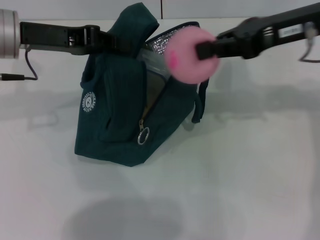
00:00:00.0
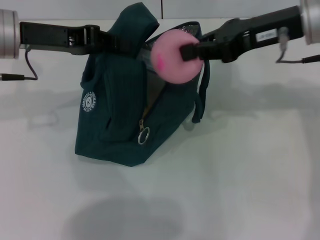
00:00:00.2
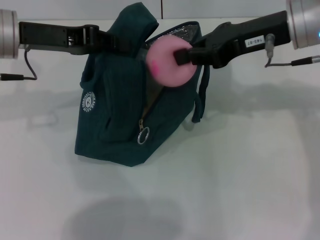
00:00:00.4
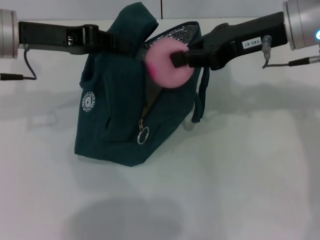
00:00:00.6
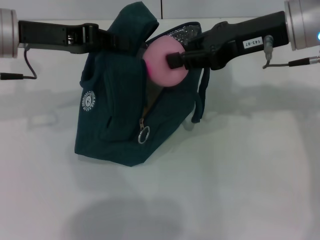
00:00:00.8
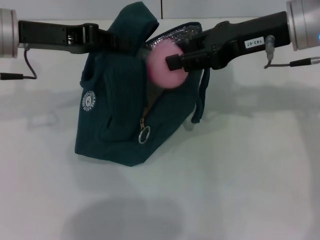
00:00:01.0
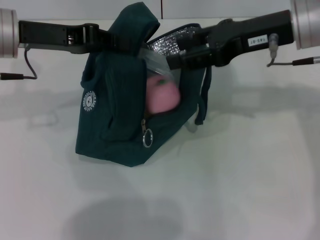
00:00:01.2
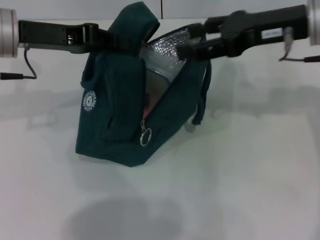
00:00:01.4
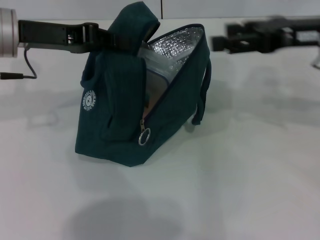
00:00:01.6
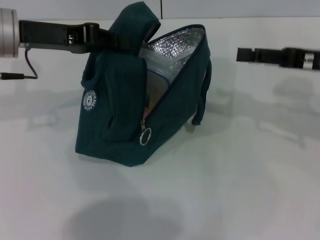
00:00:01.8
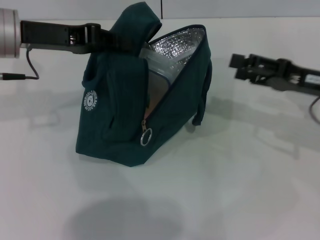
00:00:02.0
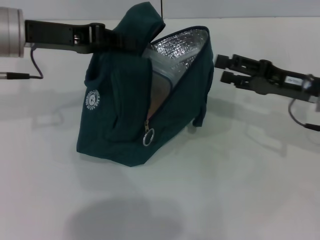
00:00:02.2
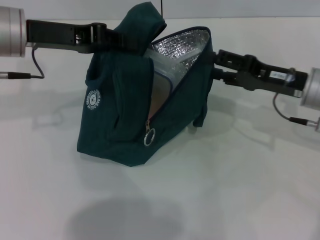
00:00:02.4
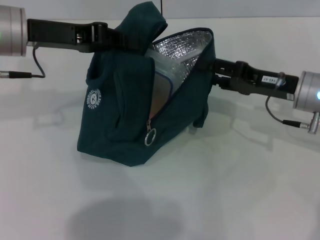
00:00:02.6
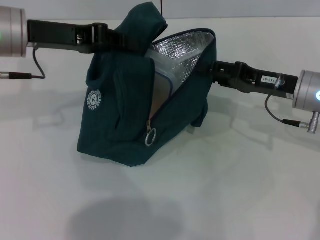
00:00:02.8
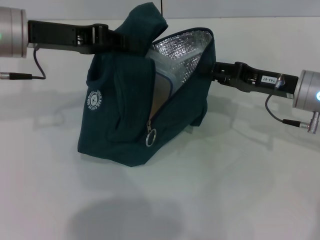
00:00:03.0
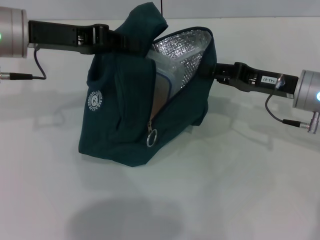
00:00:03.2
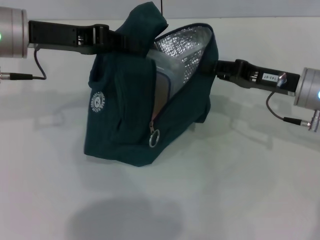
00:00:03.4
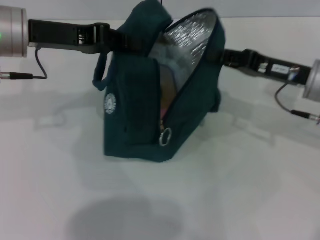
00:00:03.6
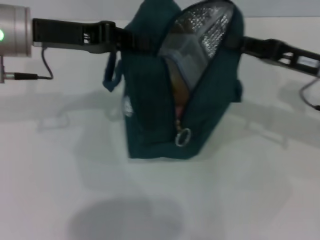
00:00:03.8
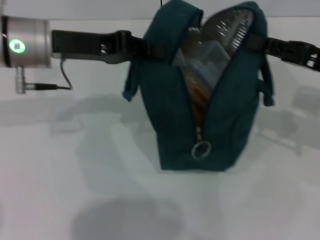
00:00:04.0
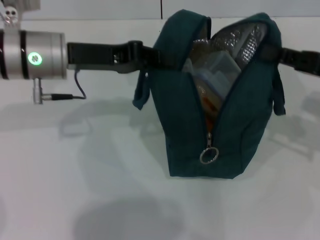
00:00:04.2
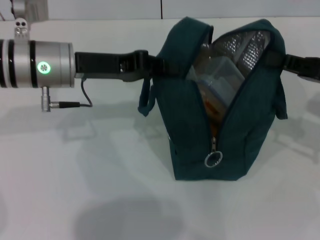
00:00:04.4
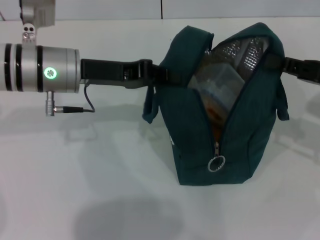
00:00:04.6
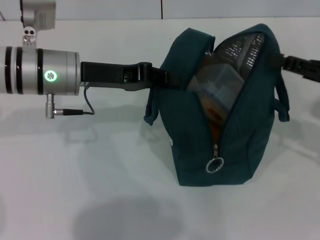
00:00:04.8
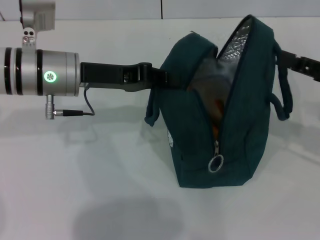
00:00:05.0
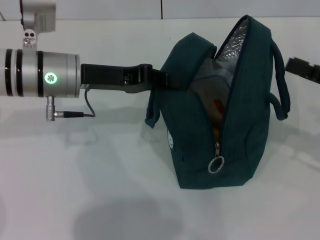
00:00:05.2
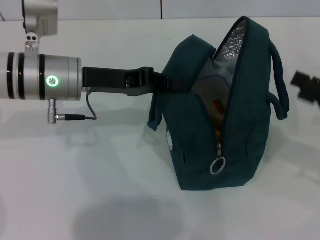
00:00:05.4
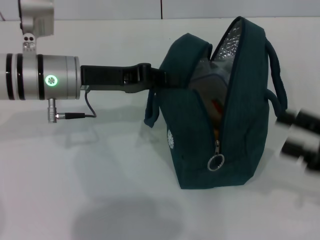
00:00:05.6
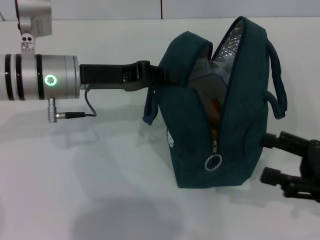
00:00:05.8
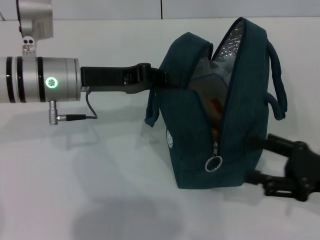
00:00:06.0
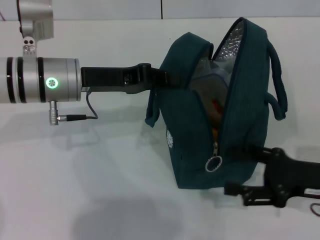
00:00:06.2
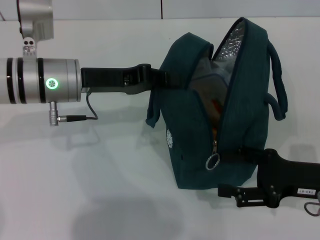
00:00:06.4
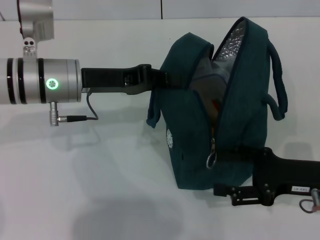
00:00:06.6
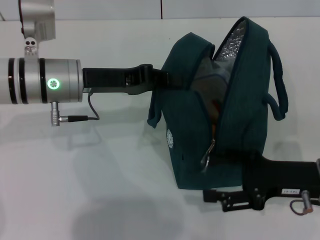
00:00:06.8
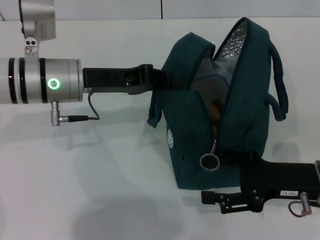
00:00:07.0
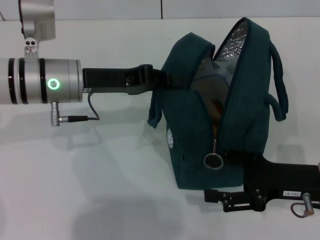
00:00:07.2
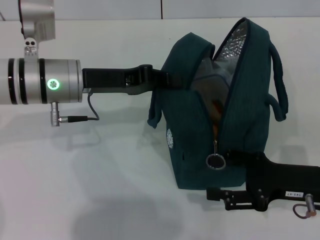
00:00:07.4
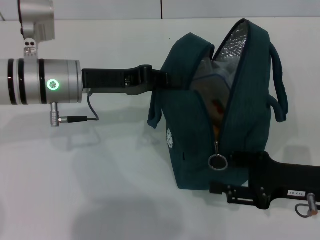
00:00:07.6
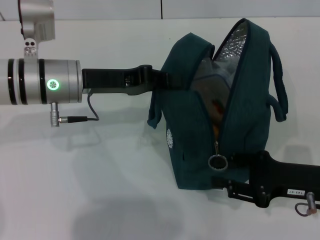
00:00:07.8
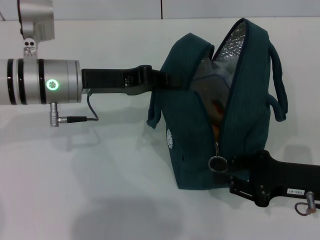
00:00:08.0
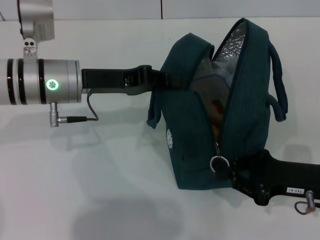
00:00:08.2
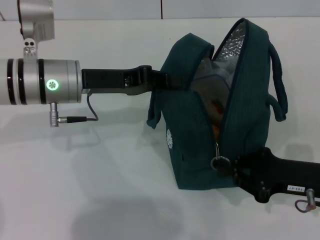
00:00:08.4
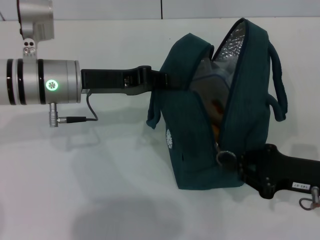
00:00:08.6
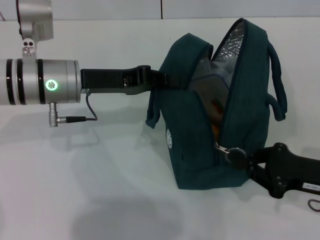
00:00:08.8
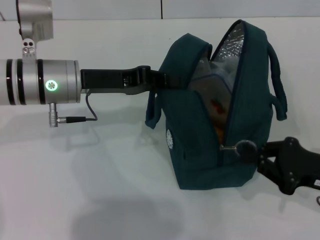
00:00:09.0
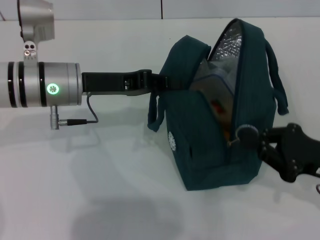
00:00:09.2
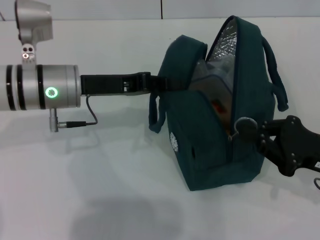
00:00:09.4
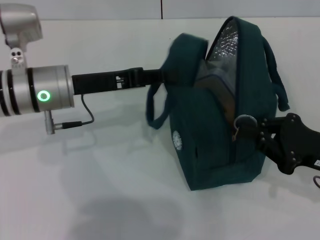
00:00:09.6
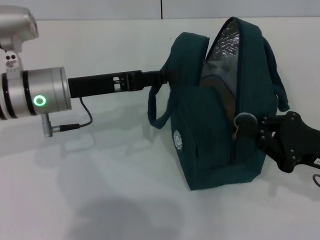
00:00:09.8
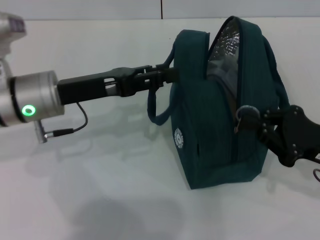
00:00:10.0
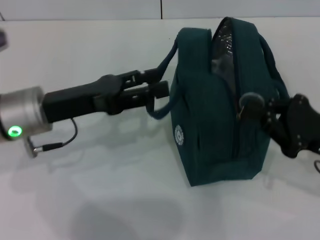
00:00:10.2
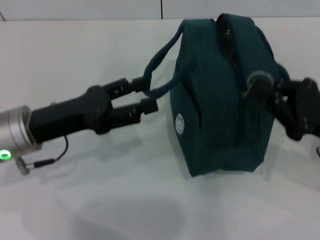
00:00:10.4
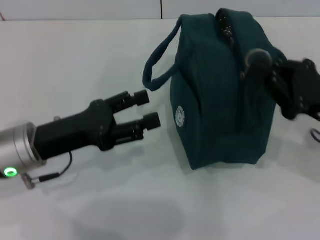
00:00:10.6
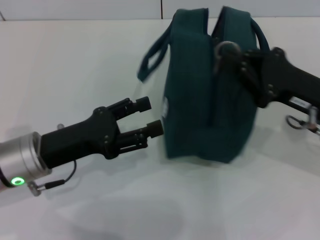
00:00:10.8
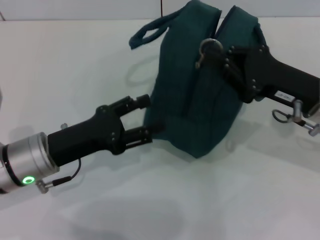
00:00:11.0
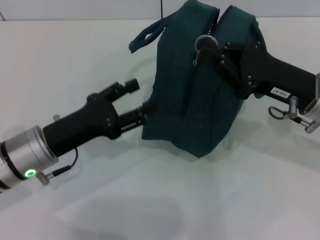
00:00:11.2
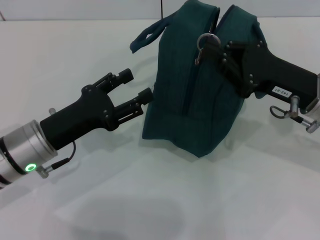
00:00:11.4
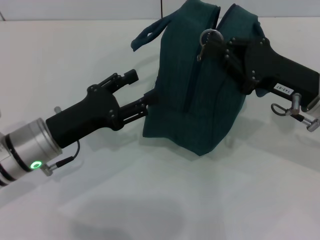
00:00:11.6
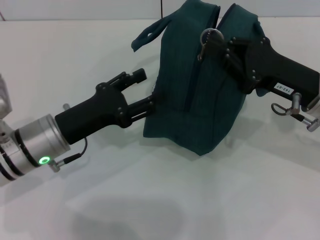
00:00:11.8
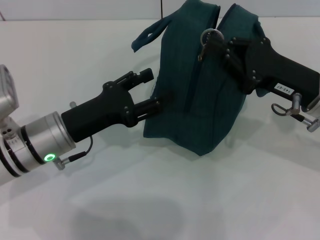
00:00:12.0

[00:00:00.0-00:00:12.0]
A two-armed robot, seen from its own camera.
Step, 00:00:01.6 to 00:00:05.4: Hold the lunch bag with your right hand.
Step, 00:00:05.6 to 00:00:10.2: Hold the lunch bag with your left hand.
00:00:00.0 to 00:00:01.6: The right gripper opens.
00:00:01.6 to 00:00:03.0: The right gripper goes roughly 10 cm downward.
00:00:03.0 to 00:00:04.4: The left gripper moves approximately 5 cm; the right gripper heads to the right, covering about 10 cm, and closes up.
00:00:04.4 to 00:00:06.0: The right gripper is displaced backward and downward by about 10 cm, and opens up.
00:00:06.0 to 00:00:07.6: The grippers move only a little.
00:00:07.6 to 00:00:09.0: The right gripper closes its fingers.
00:00:09.0 to 00:00:10.4: The left gripper shifts approximately 10 cm backward, and opens.
00:00:10.4 to 00:00:12.0: The left gripper moves approximately 5 cm, while the right gripper heads forward and to the left, covering roughly 10 cm.

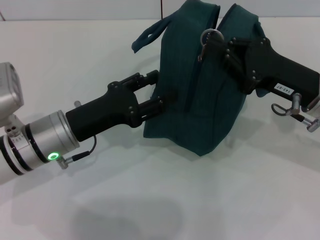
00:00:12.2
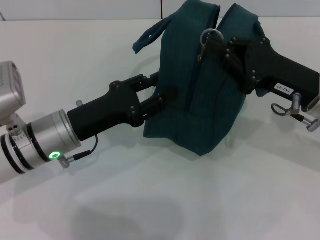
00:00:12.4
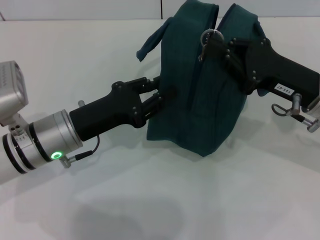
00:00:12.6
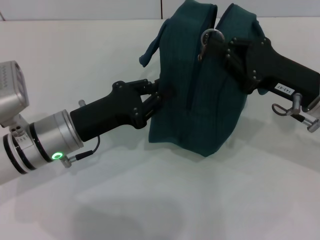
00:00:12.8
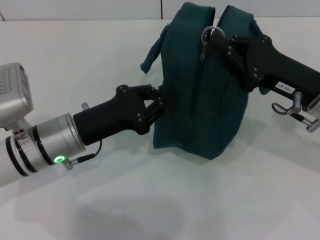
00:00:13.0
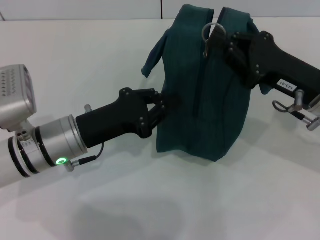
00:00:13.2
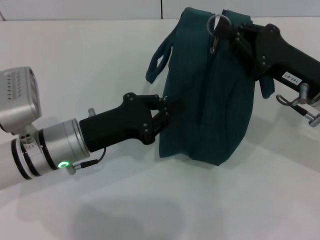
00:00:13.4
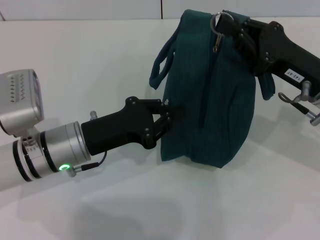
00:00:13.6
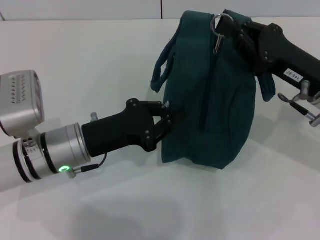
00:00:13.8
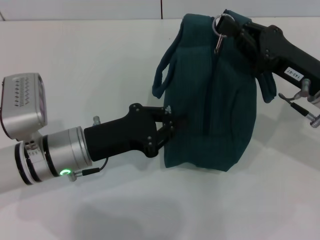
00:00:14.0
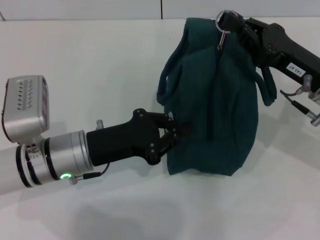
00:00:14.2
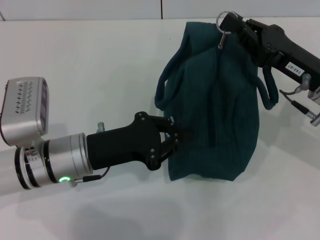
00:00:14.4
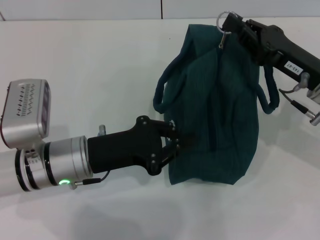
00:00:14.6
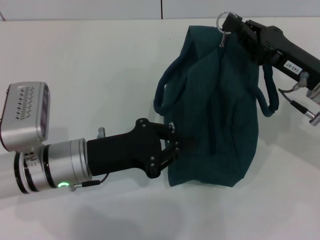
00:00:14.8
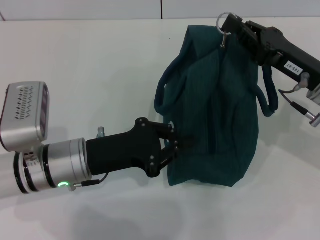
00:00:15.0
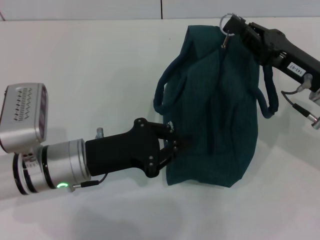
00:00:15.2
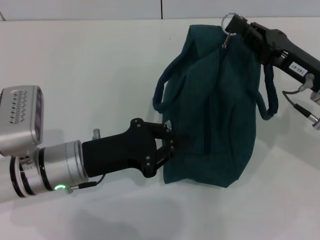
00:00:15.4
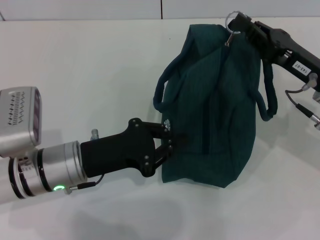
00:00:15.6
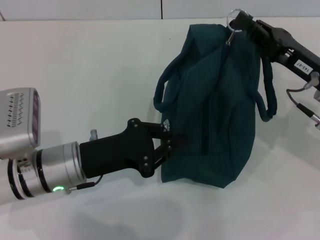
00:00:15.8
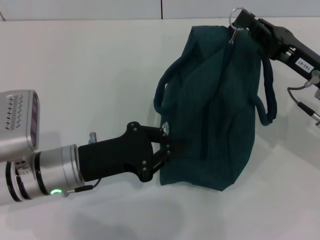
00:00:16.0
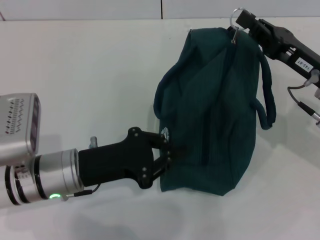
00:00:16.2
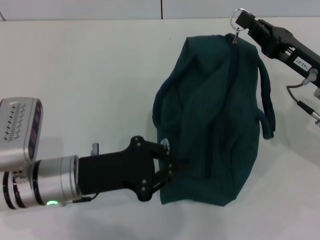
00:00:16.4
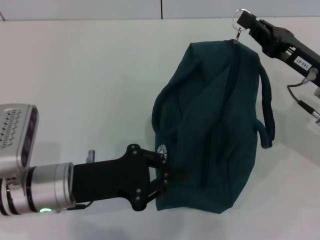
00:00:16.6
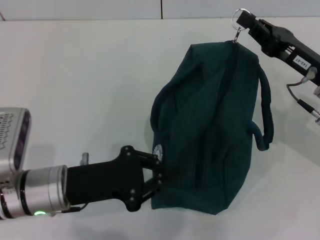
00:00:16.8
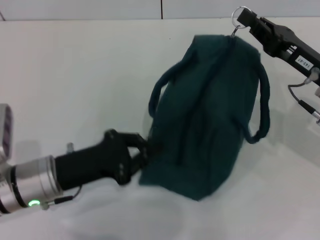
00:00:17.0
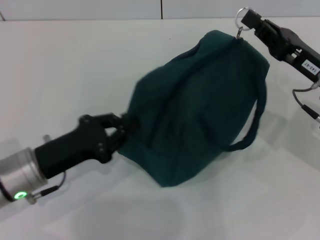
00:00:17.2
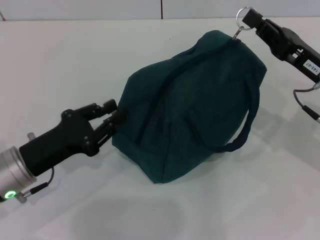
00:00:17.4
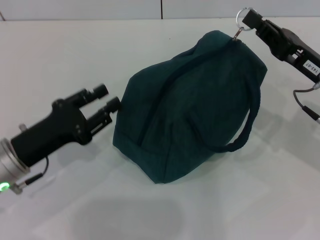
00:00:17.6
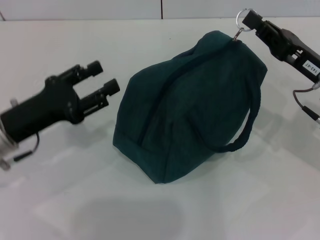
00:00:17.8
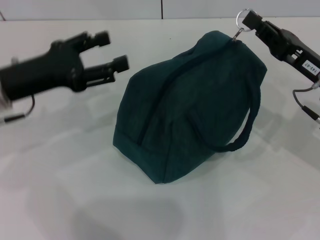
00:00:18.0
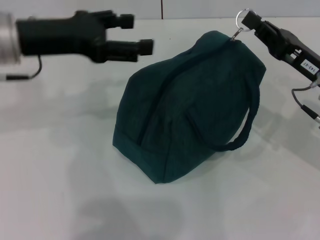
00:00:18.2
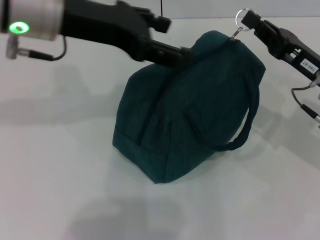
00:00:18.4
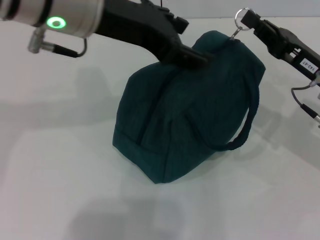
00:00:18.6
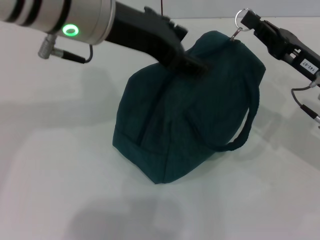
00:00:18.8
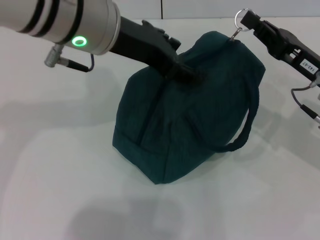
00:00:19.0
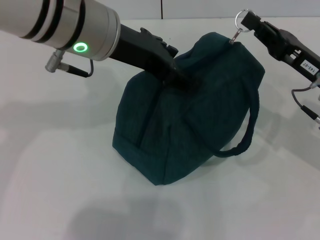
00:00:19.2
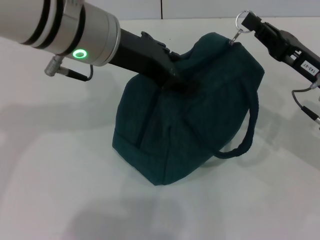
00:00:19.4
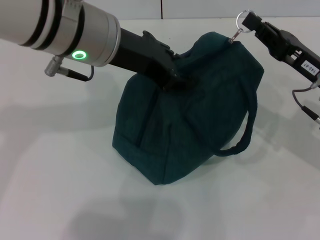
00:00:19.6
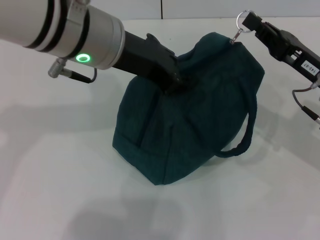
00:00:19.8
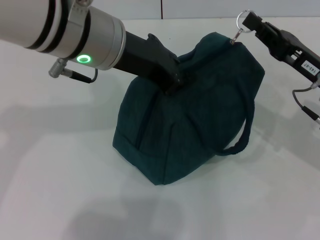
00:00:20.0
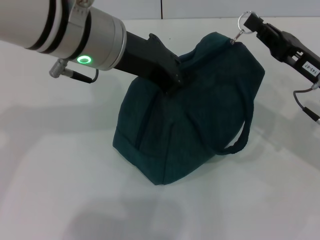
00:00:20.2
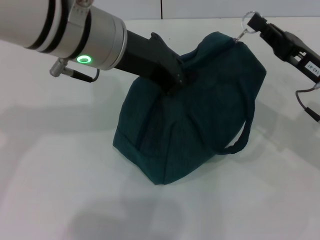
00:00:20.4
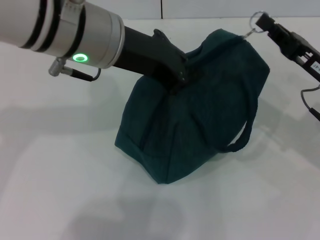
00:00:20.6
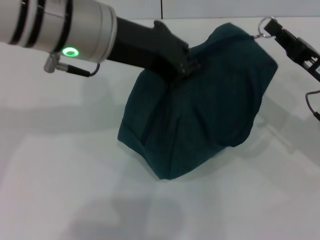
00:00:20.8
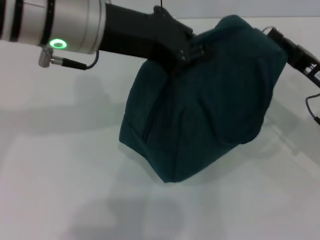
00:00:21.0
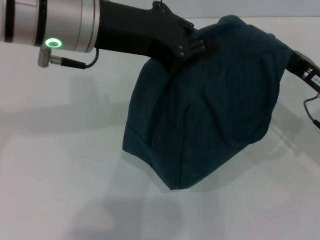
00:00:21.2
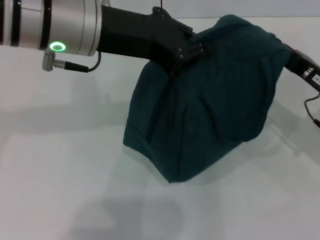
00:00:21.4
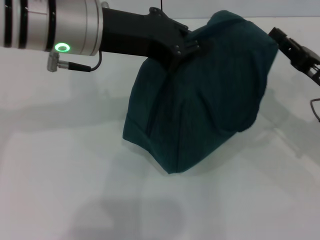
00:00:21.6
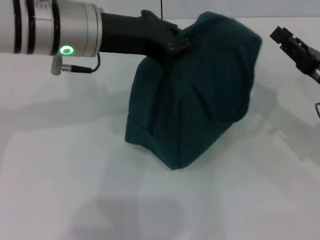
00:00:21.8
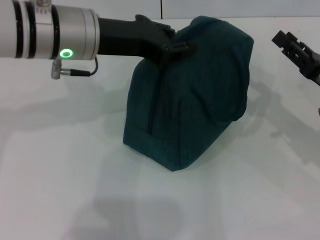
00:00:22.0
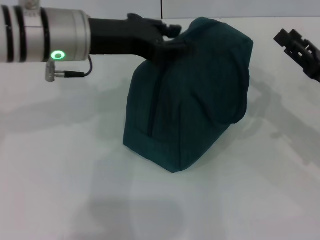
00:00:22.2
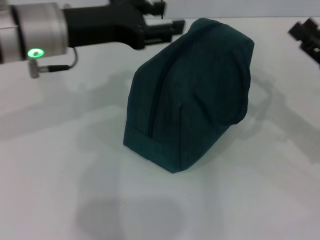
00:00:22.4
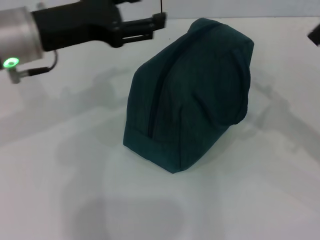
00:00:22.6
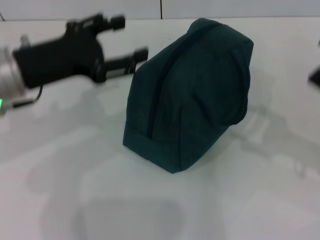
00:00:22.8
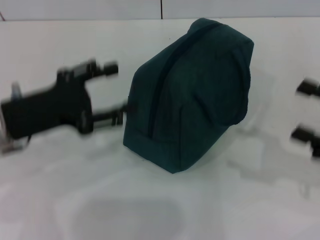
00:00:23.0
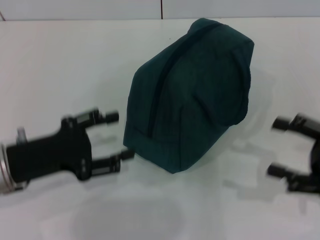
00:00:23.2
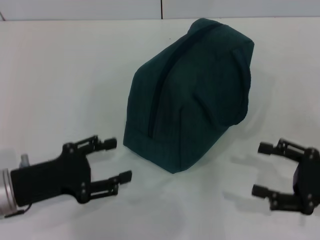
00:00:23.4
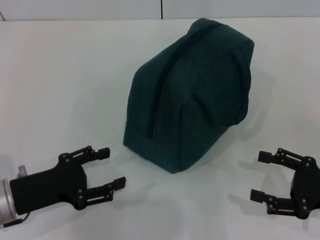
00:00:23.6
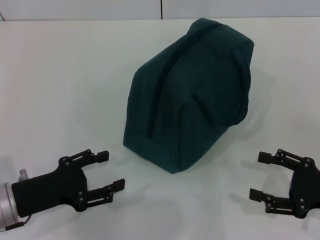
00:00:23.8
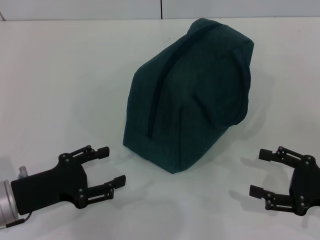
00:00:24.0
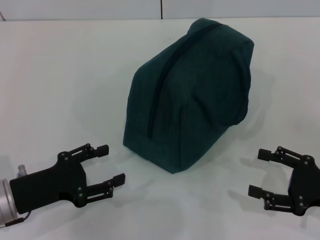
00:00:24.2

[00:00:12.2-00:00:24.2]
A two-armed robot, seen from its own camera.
Step, 00:00:12.2 to 00:00:21.6: Zip up the lunch bag with your right hand.
Step, 00:00:21.8 to 00:00:22.2: Hold the lunch bag with your left hand.
00:00:12.2 to 00:00:13.8: The left gripper closes.
00:00:16.6 to 00:00:18.2: The left gripper shifts some 20 cm upward and forward, and opens its fingers.
00:00:18.2 to 00:00:19.8: The left gripper moves to the right, about 10 cm, and closes.
00:00:19.8 to 00:00:21.2: The left gripper closes its fingers.
00:00:21.2 to 00:00:22.6: The right gripper moves roughly 5 cm, and opens. The left gripper moves to the left and downward, about 10 cm, and opens its fingers.
00:00:22.6 to 00:00:24.2: The right gripper is displaced downward and backward by some 10 cm. Meanwhile the left gripper shifts approximately 20 cm downward and backward.
